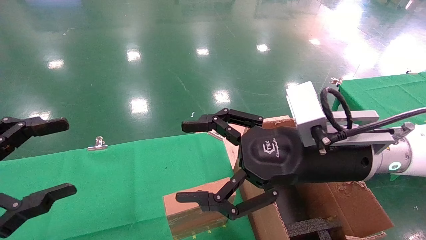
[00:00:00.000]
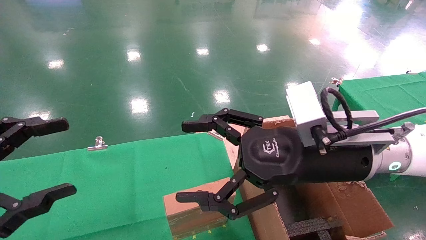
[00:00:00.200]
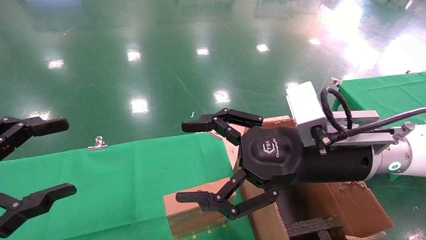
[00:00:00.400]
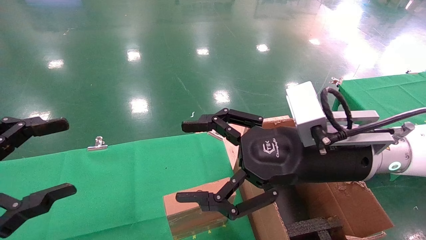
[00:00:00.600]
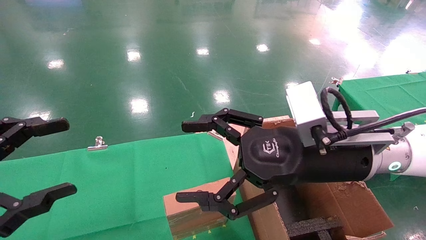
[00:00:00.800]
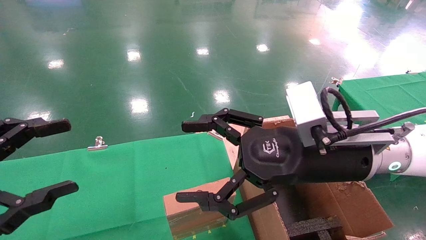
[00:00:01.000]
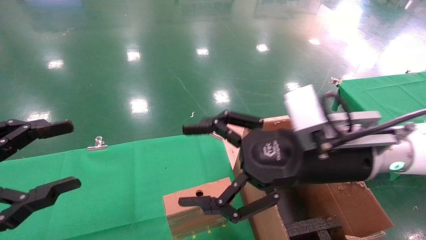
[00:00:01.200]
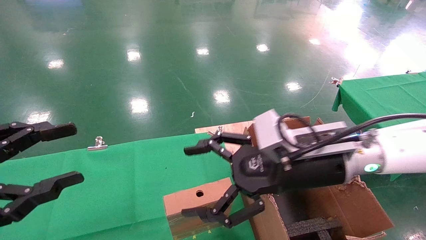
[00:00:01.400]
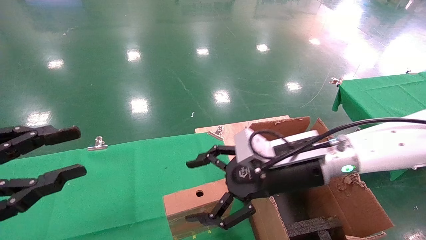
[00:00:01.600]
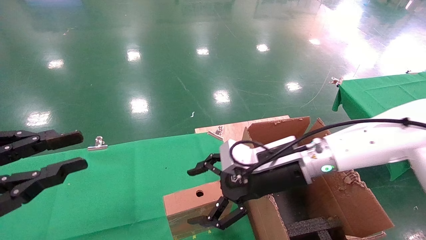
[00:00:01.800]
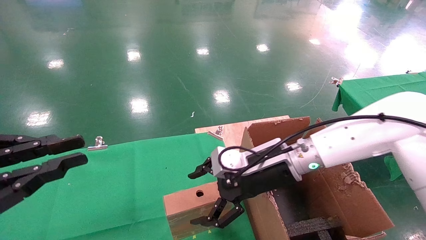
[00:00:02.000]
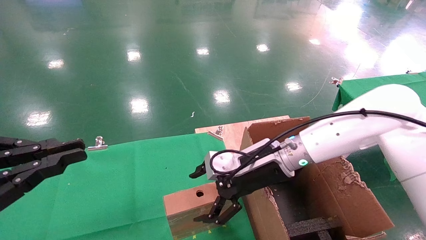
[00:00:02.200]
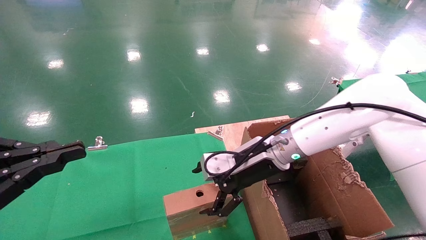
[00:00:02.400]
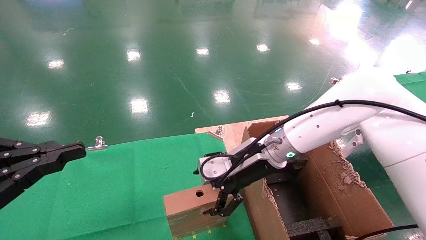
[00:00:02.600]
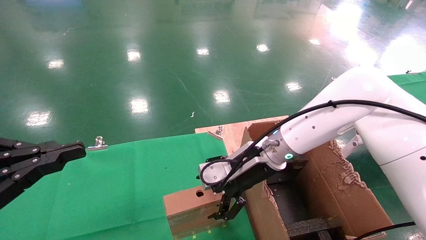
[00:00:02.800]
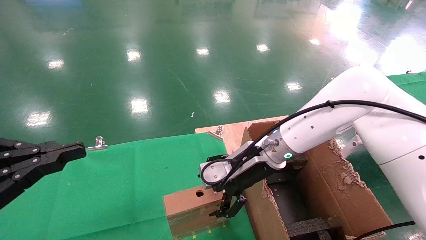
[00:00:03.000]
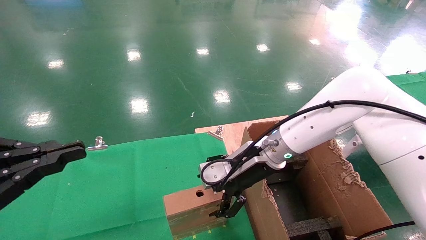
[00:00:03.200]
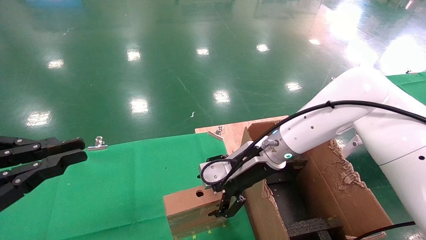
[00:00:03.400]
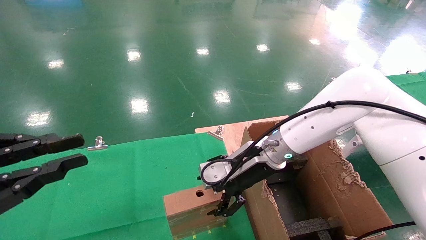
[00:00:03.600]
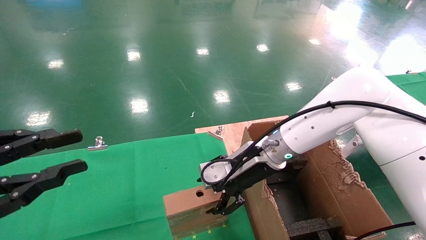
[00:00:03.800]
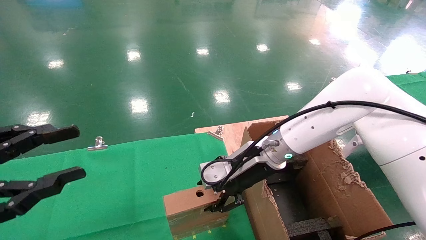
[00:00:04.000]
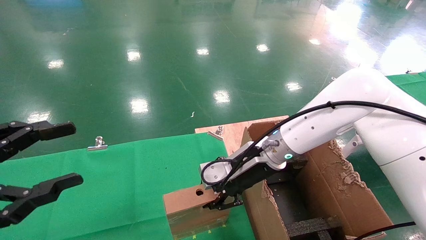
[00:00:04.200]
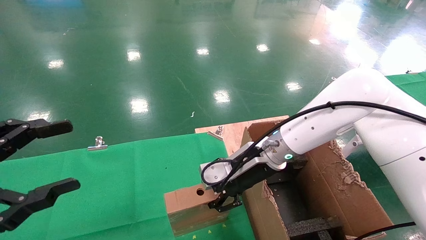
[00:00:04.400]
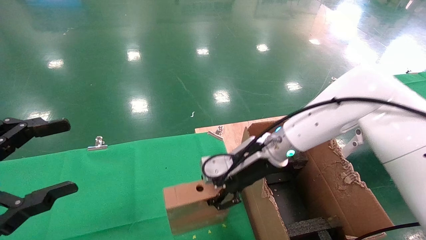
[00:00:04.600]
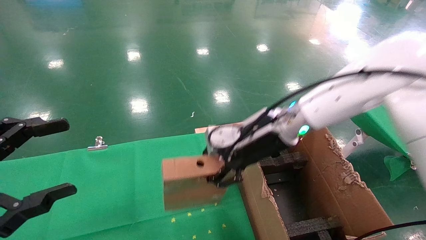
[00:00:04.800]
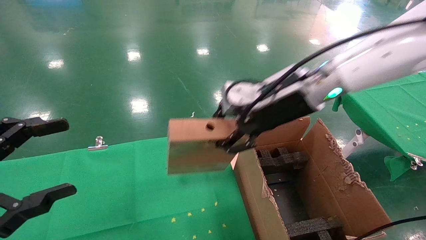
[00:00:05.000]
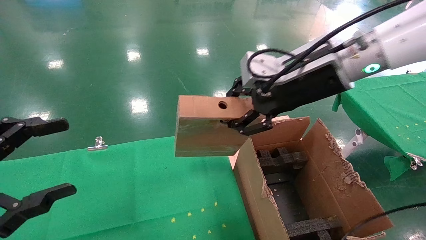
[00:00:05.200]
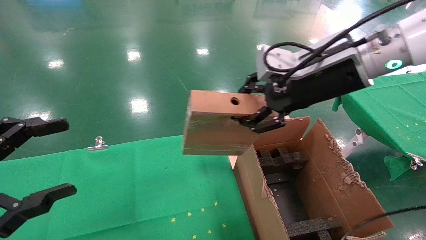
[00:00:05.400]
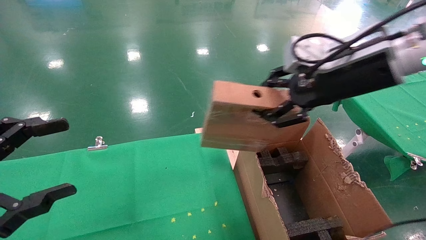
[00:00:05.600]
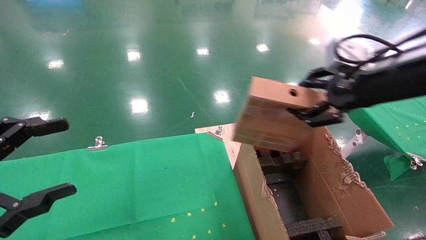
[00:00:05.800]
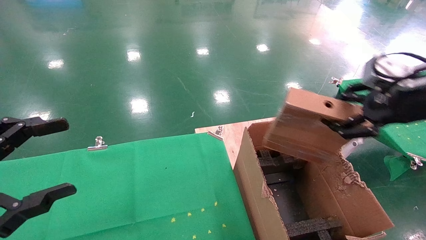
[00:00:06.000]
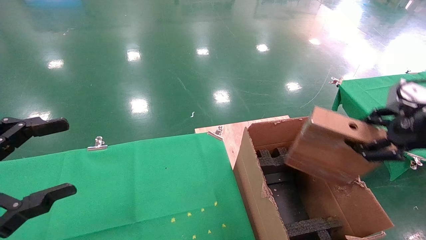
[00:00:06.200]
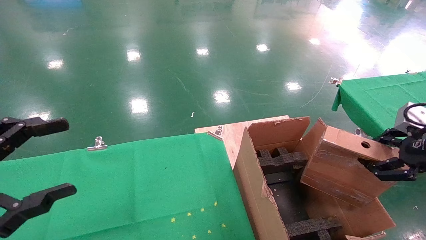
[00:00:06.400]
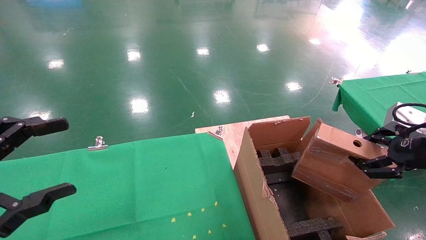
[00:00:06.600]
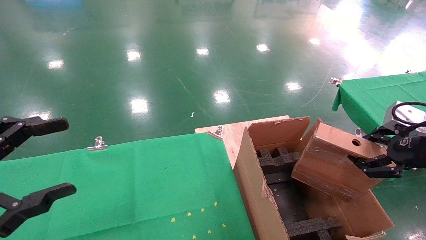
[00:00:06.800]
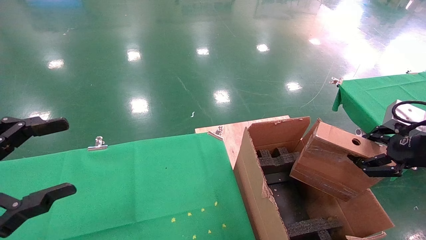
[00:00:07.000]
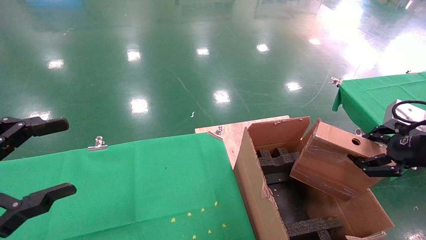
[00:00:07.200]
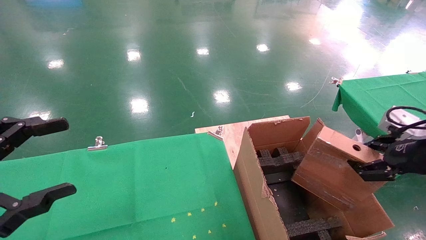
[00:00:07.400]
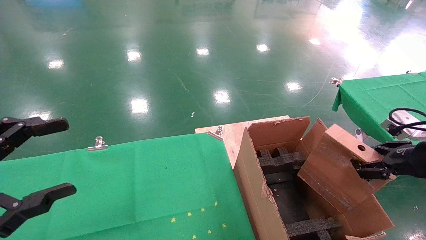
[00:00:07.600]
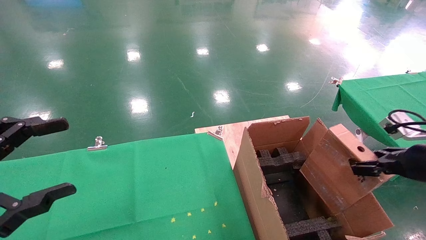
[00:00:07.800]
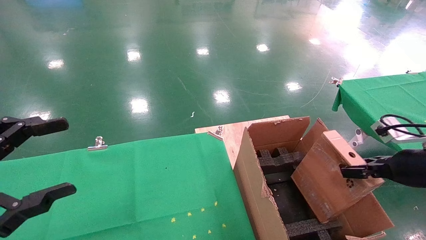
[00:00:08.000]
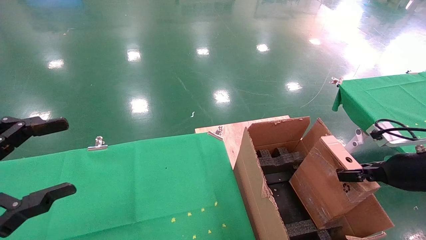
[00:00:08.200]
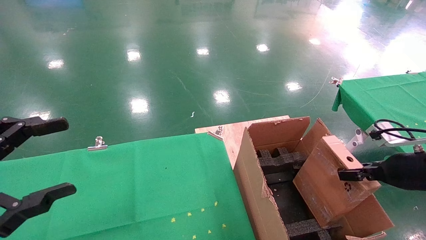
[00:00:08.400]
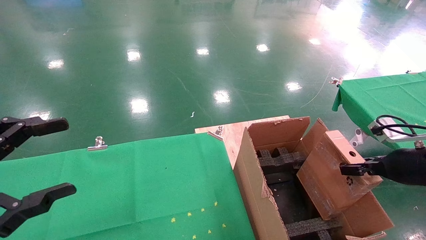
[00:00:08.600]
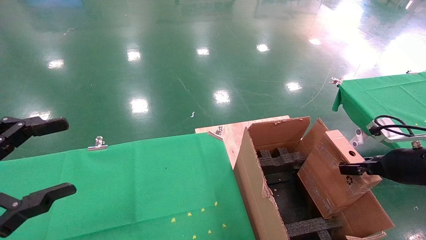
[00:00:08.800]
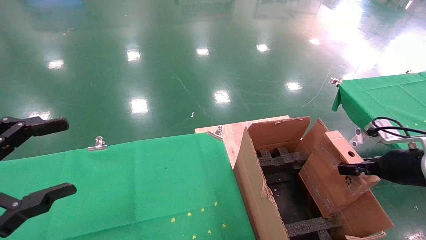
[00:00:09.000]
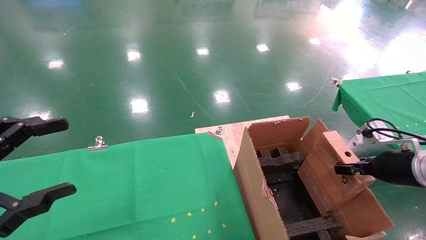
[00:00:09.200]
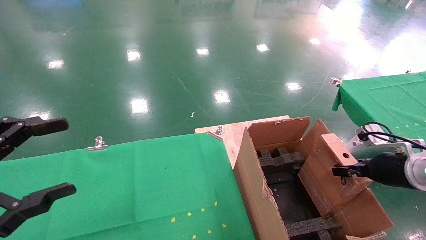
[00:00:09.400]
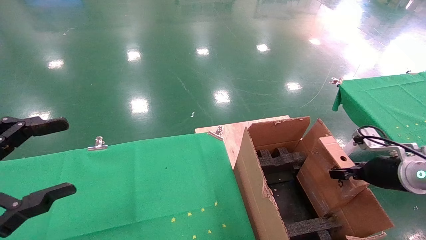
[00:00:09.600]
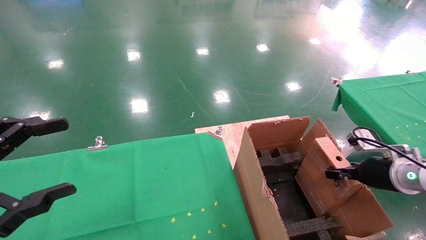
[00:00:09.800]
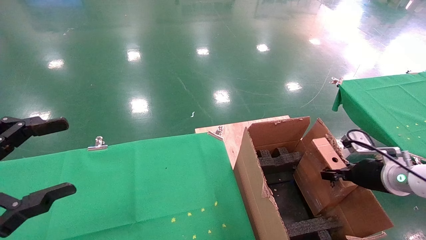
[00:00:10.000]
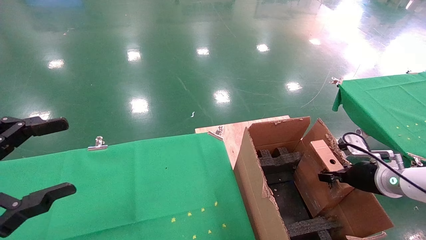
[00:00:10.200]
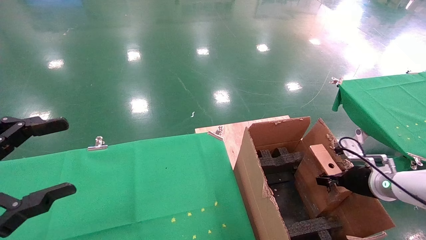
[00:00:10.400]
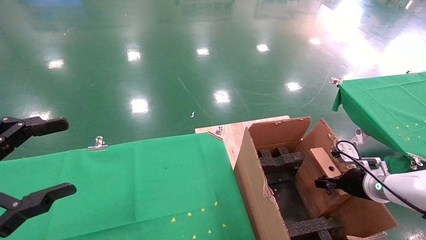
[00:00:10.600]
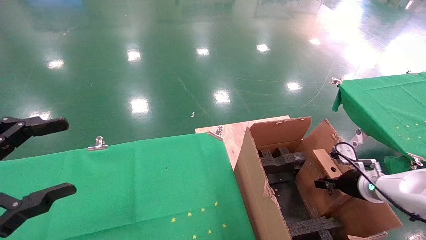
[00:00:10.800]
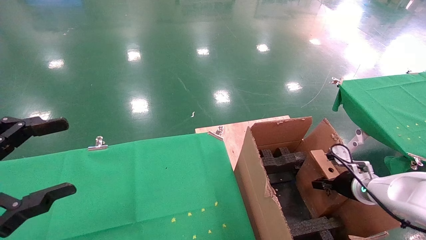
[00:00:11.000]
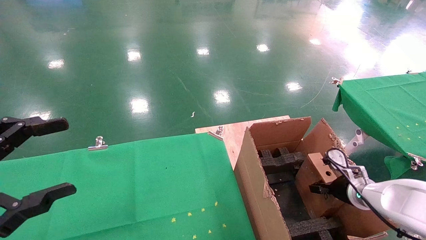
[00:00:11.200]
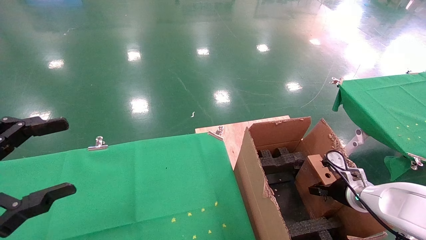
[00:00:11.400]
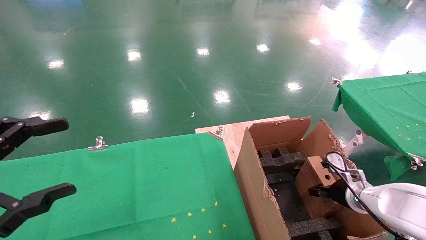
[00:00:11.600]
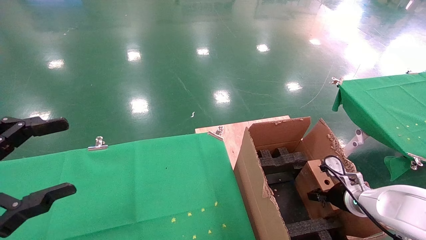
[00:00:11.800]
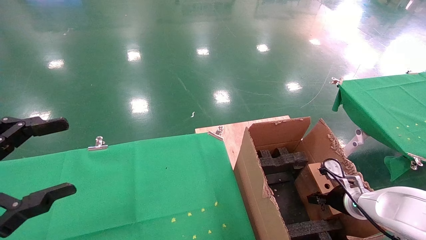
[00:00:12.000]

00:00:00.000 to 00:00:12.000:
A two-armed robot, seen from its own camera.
Task of the whole recording: using a robotic arm to pick up a cardboard box and palace it the carton.
Step, 00:00:01.200 to 00:00:04.200: Pick up the mouse and the power cord paper box.
00:00:00.000 to 00:00:01.600: The right gripper goes approximately 10 cm forward and downward. Meanwhile the left gripper closes its fingers.
00:00:01.600 to 00:00:03.000: The left gripper closes up. The right gripper shifts about 10 cm forward.
00:00:03.000 to 00:00:04.400: The right gripper closes its fingers. The left gripper opens.
00:00:04.400 to 00:00:06.000: The right gripper moves to the right, upward and backward, about 30 cm.
00:00:06.000 to 00:00:07.600: The right gripper shifts approximately 15 cm downward and to the right.
00:00:07.600 to 00:00:09.000: The right gripper shifts by some 5 cm.
00:00:09.000 to 00:00:10.400: The right gripper shifts approximately 10 cm downward and forward.
00:00:10.400 to 00:00:12.000: The right gripper moves downward, roughly 5 cm.

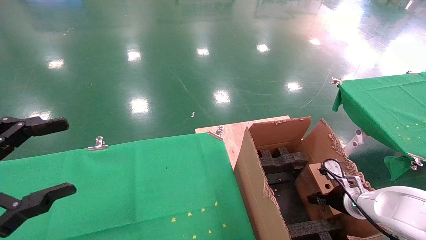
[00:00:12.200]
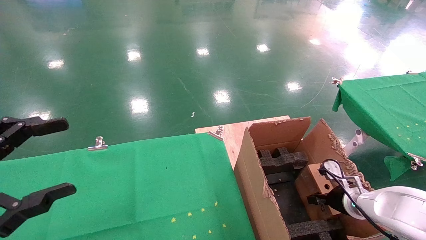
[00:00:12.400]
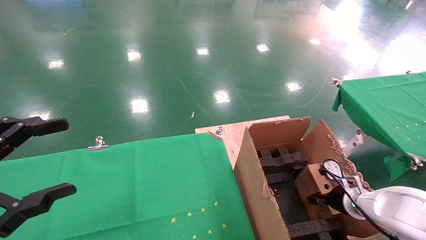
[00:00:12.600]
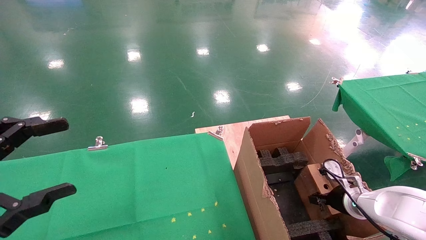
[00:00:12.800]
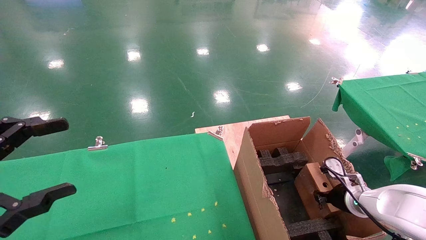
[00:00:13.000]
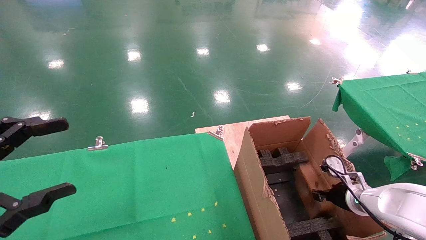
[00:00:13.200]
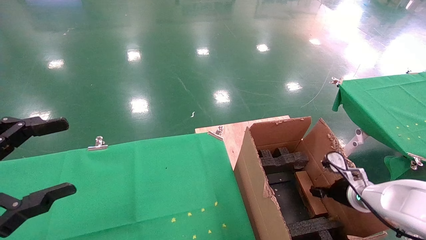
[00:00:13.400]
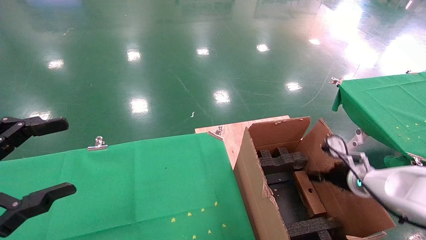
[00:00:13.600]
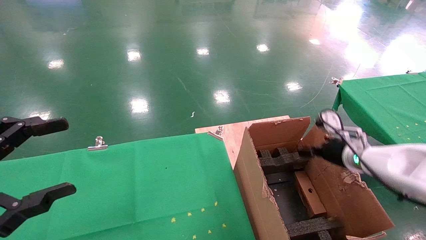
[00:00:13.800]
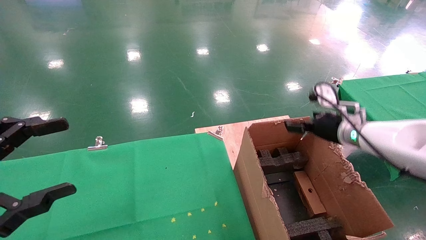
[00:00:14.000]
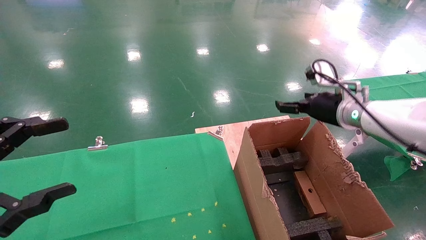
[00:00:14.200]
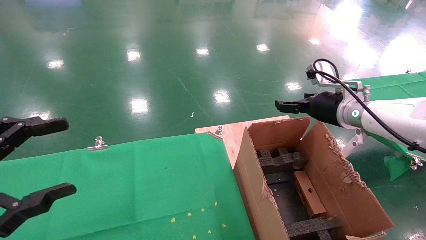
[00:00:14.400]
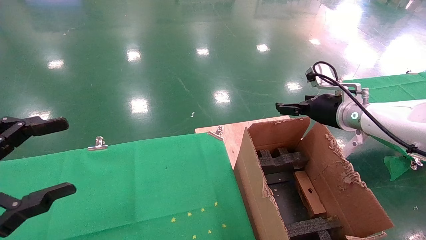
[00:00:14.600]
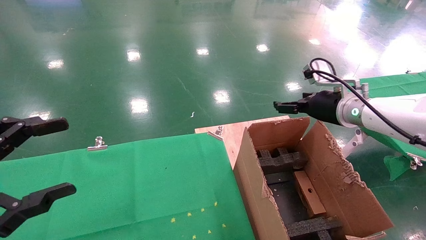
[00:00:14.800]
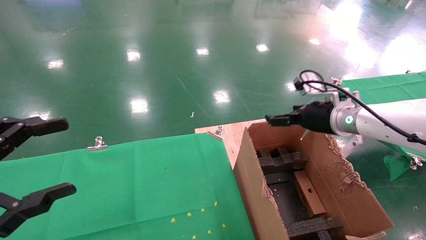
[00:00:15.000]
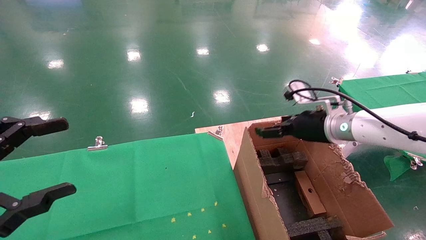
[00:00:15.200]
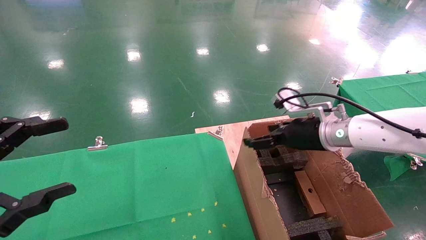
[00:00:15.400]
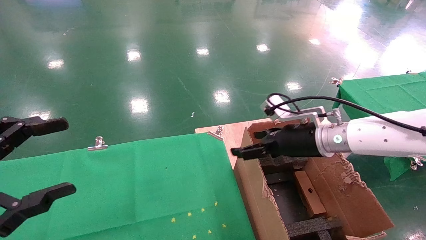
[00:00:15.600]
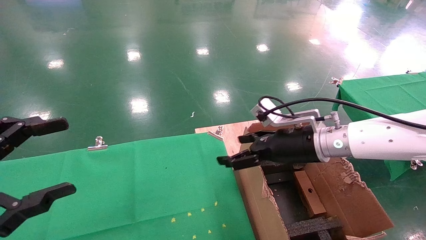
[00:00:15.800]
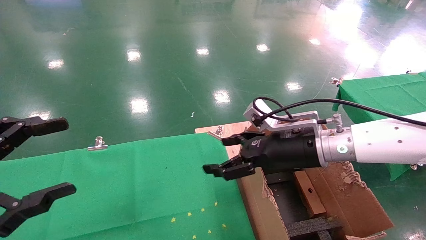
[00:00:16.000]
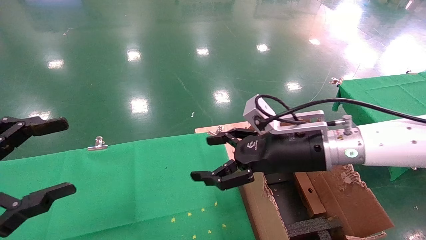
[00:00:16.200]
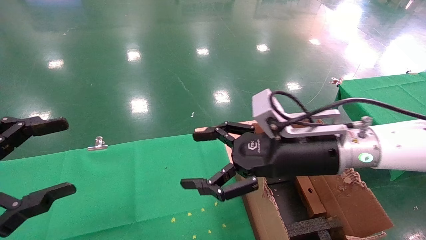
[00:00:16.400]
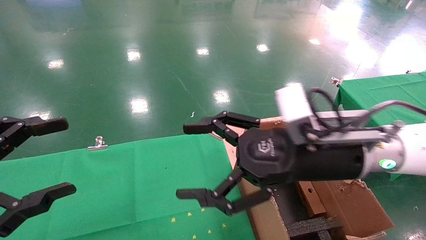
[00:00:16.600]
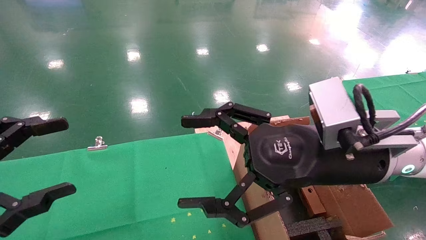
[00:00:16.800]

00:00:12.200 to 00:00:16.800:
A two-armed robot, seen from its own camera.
Task of the whole recording: using a robotic arm to pick up a cardboard box and palace it the carton.
00:00:12.200 to 00:00:13.800: The right gripper travels upward by roughly 15 cm, and opens up.
00:00:13.800 to 00:00:15.200: The right gripper travels to the left and upward by about 10 cm.
00:00:15.200 to 00:00:16.800: The right gripper is displaced backward and to the left by about 15 cm.
